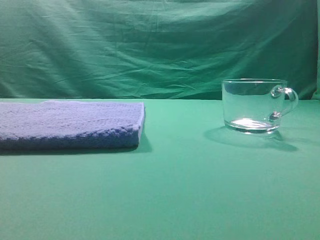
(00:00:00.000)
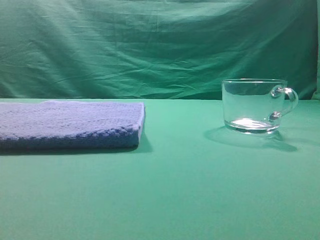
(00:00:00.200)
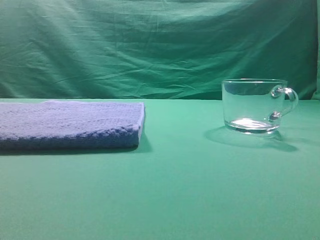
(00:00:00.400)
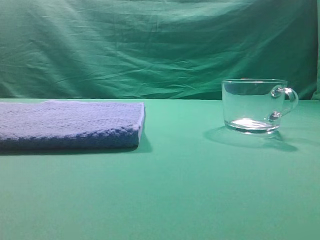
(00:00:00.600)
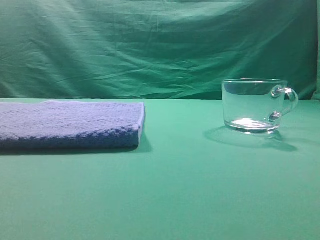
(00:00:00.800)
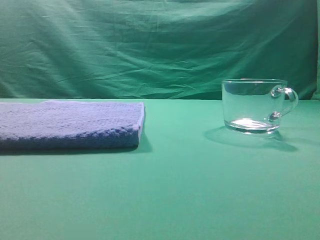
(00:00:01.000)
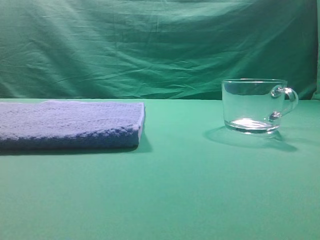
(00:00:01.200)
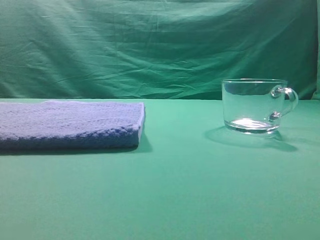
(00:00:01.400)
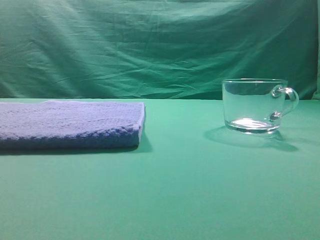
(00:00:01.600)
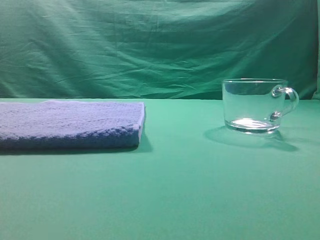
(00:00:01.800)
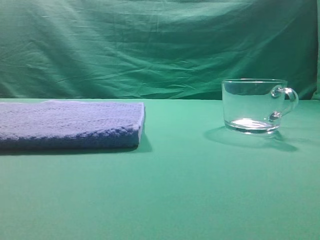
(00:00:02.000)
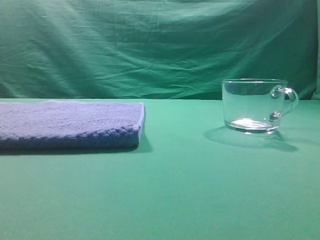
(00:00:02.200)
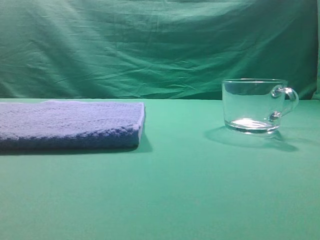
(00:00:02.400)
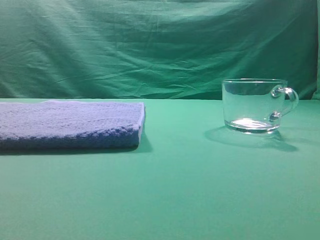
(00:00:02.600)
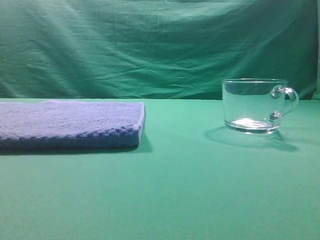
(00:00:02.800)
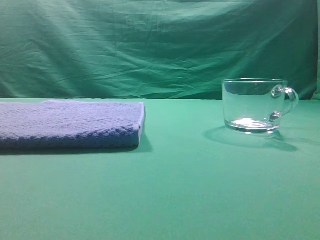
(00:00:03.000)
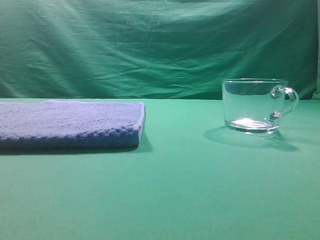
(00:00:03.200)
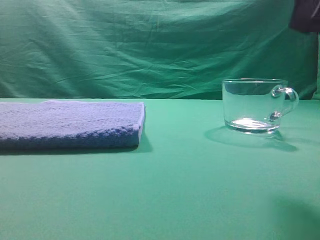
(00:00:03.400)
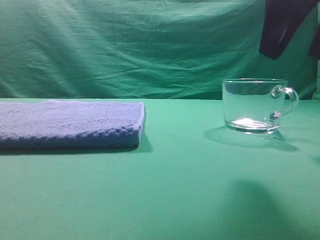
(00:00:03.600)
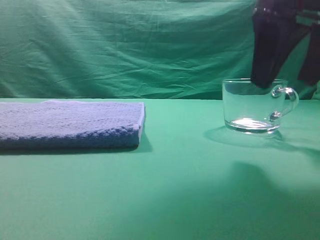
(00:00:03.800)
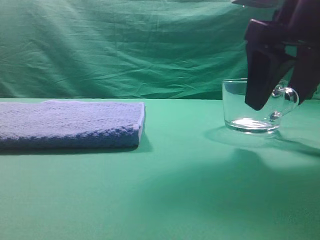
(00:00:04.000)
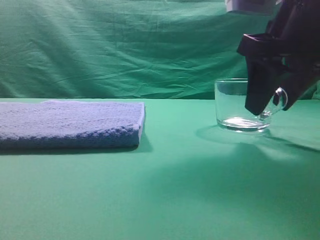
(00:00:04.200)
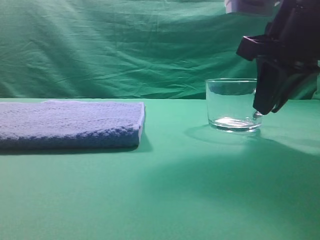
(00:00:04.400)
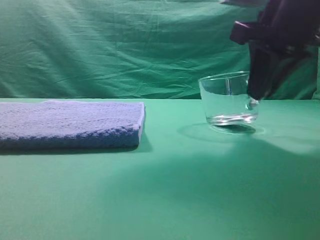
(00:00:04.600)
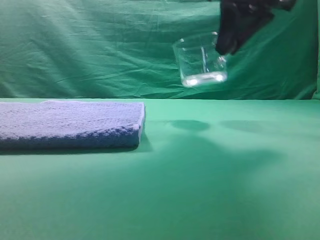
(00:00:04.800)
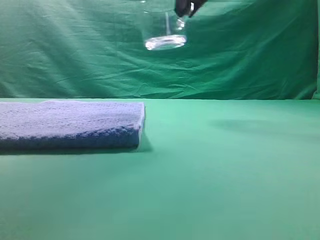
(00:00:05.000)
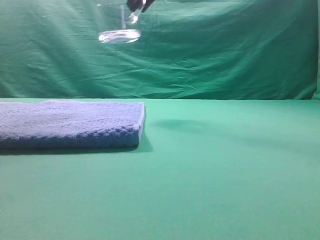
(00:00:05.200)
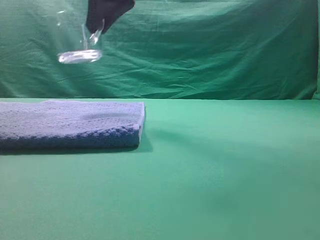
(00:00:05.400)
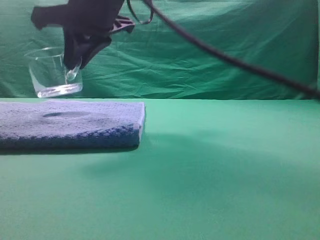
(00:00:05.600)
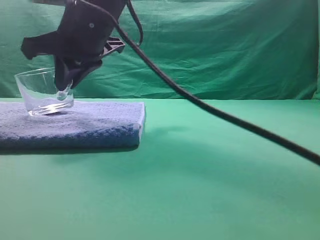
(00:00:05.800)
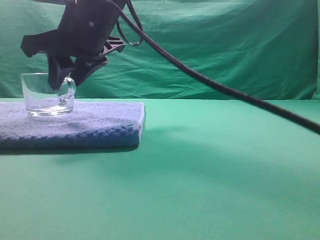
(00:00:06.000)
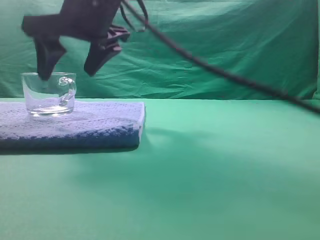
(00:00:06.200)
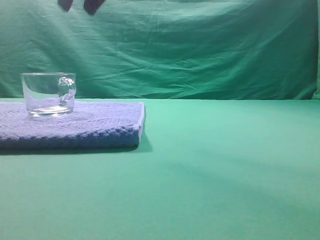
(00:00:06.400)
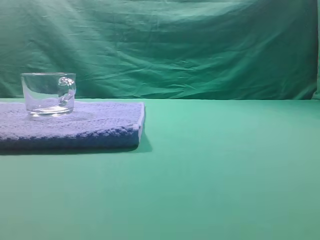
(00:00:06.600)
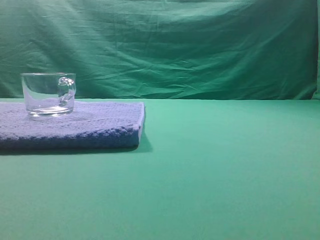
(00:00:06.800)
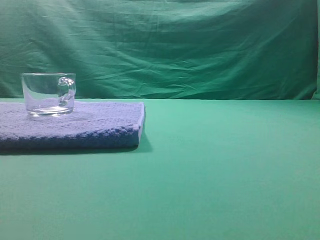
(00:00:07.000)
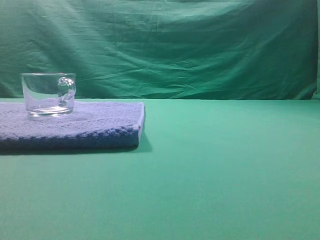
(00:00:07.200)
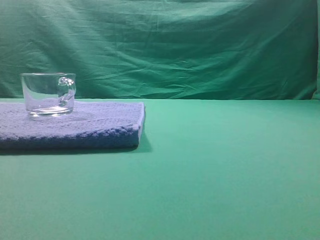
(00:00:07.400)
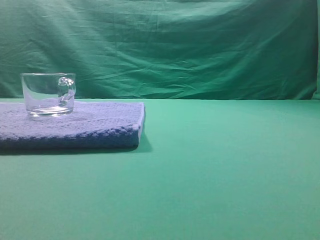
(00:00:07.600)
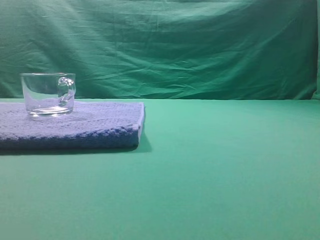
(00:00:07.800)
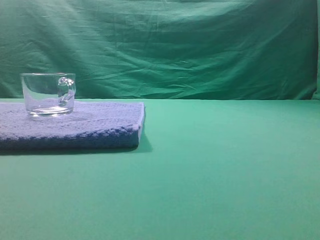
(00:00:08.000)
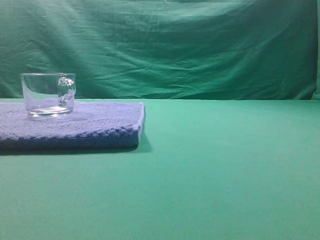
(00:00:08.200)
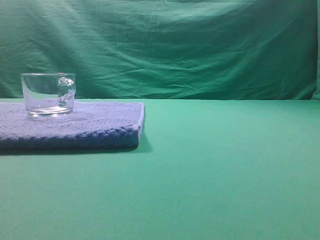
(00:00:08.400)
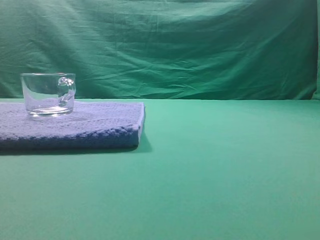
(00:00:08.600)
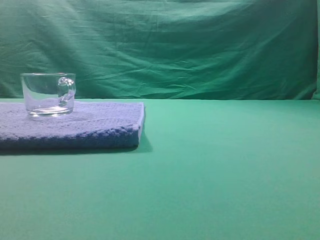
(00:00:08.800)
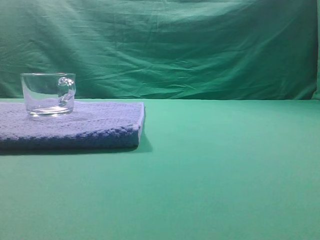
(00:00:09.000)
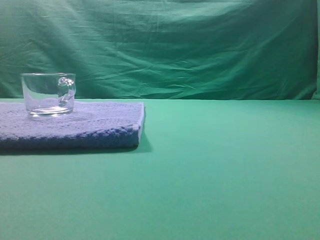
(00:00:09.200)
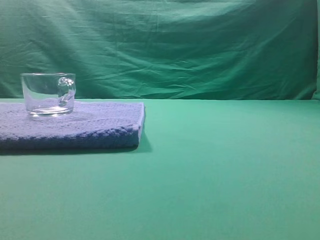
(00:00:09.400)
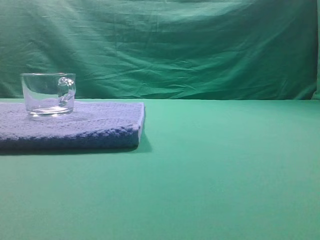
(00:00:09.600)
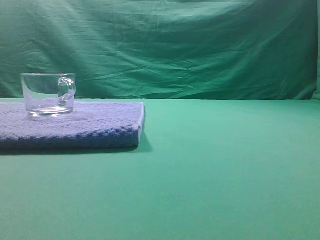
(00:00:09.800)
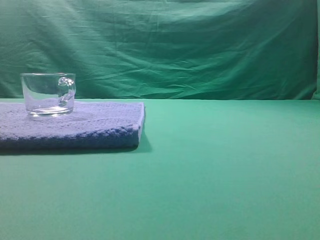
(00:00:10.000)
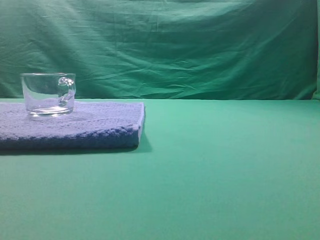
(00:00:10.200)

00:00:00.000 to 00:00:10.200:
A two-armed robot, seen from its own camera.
Task of the whole recording: grasp the transparent glass cup and place it within the blue towel.
Step, 00:00:00.000 to 00:00:04.600: Grasp the transparent glass cup.
Step, 00:00:04.800 to 00:00:06.200: Place the glass cup on the blue zone.

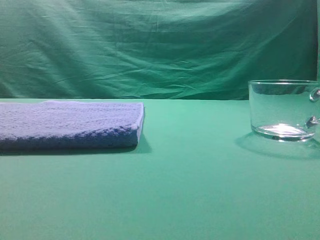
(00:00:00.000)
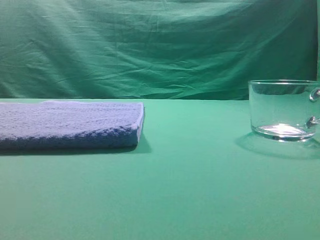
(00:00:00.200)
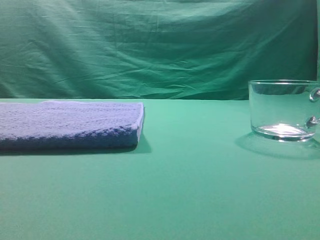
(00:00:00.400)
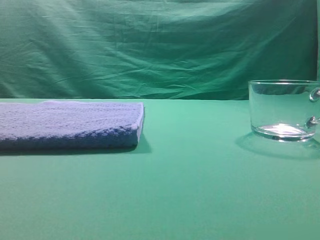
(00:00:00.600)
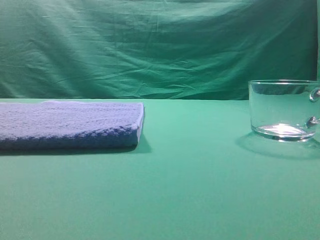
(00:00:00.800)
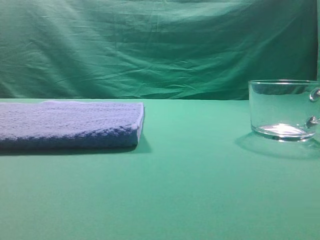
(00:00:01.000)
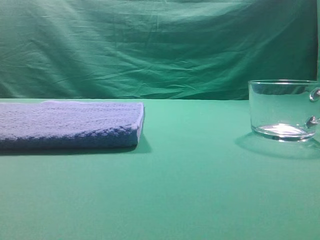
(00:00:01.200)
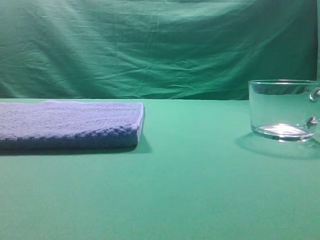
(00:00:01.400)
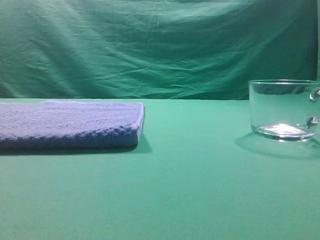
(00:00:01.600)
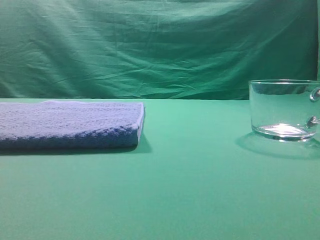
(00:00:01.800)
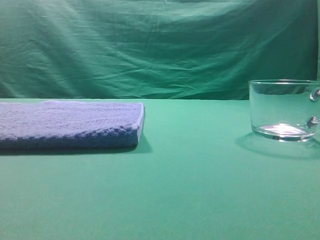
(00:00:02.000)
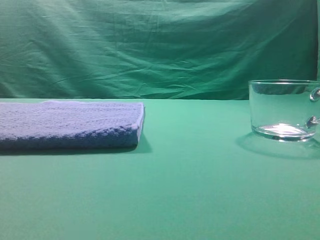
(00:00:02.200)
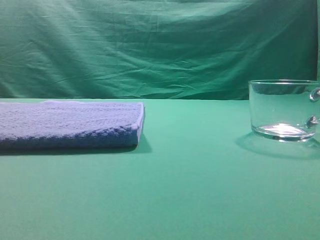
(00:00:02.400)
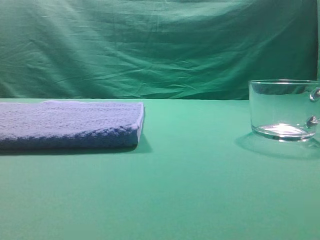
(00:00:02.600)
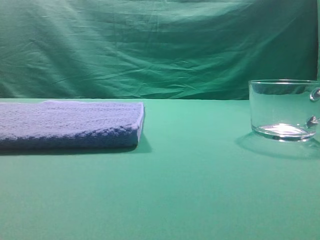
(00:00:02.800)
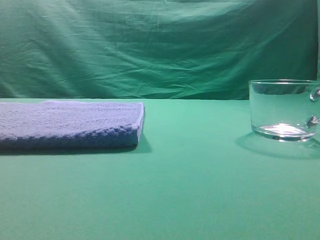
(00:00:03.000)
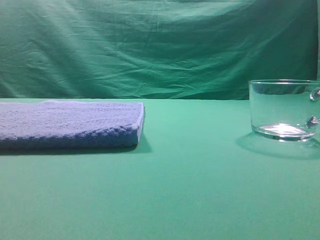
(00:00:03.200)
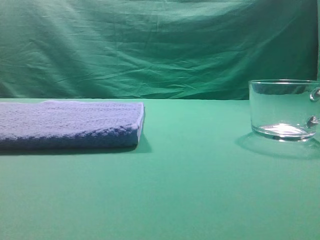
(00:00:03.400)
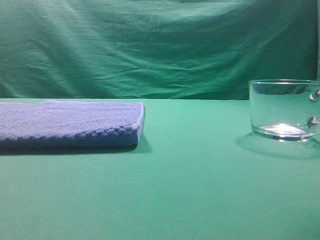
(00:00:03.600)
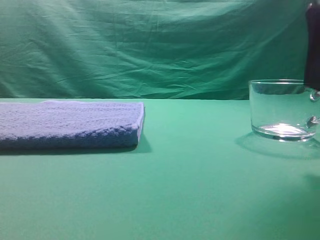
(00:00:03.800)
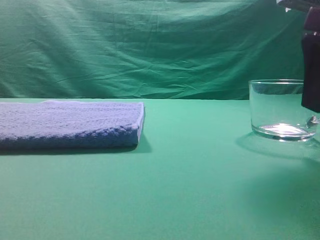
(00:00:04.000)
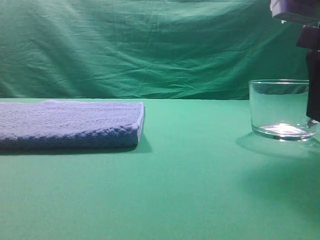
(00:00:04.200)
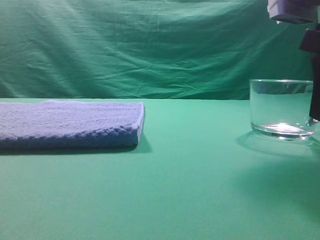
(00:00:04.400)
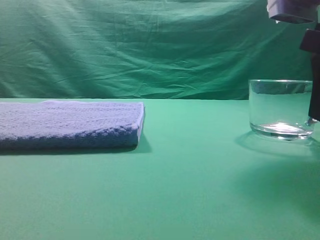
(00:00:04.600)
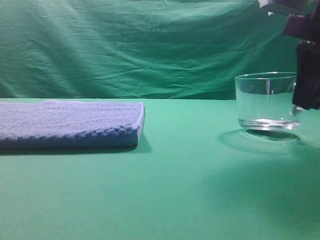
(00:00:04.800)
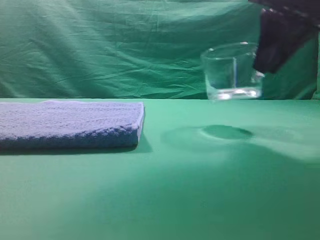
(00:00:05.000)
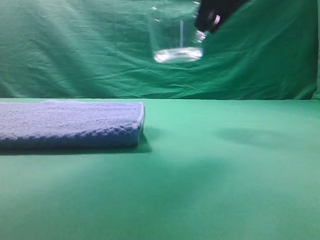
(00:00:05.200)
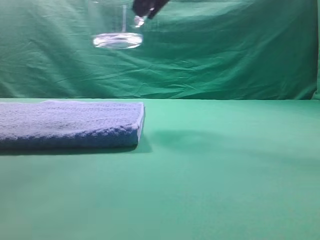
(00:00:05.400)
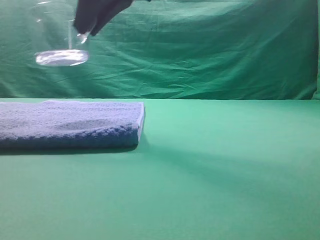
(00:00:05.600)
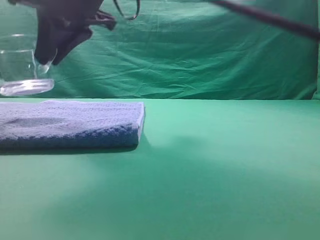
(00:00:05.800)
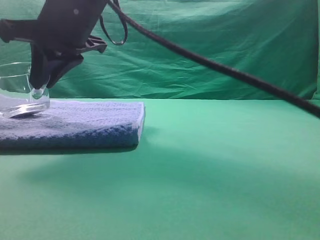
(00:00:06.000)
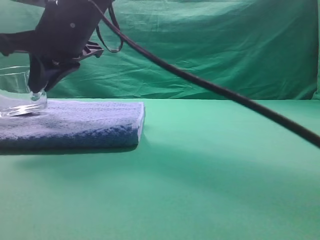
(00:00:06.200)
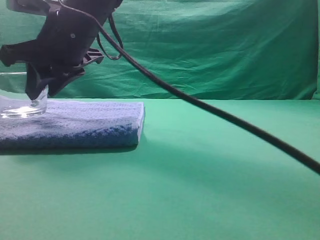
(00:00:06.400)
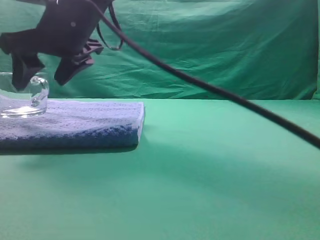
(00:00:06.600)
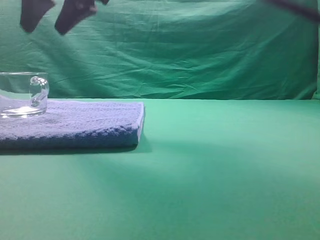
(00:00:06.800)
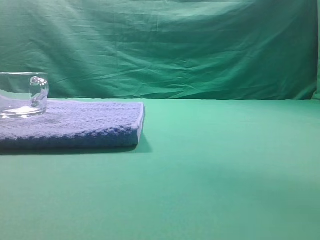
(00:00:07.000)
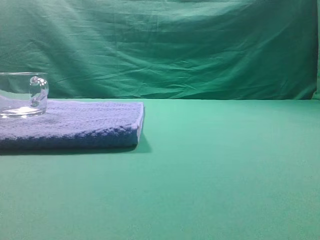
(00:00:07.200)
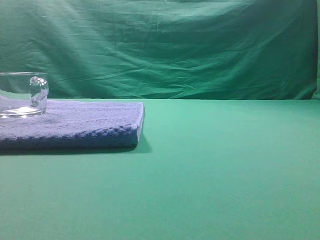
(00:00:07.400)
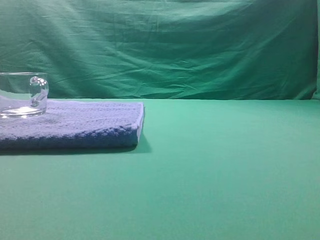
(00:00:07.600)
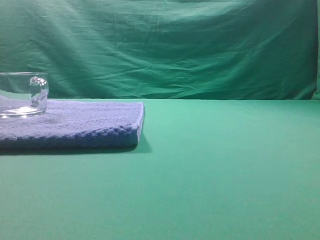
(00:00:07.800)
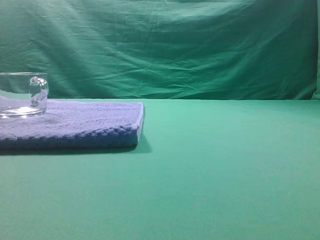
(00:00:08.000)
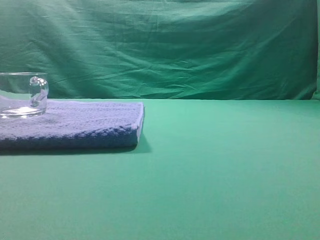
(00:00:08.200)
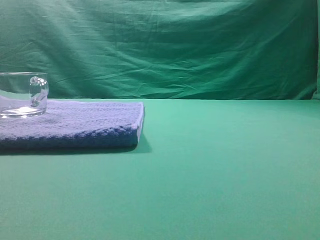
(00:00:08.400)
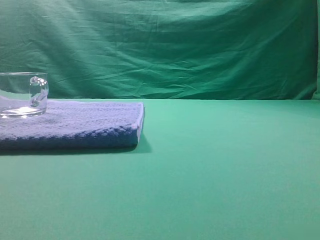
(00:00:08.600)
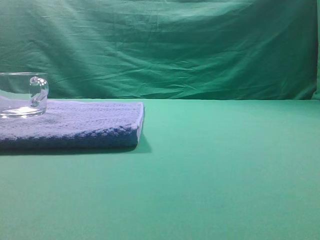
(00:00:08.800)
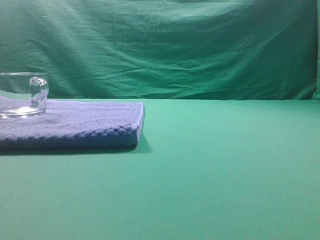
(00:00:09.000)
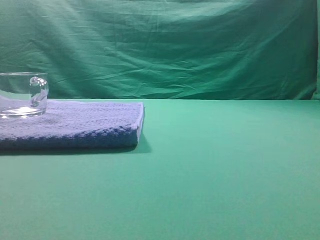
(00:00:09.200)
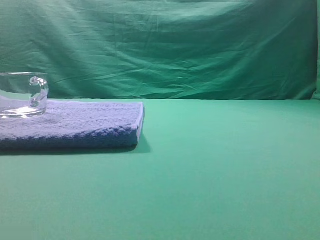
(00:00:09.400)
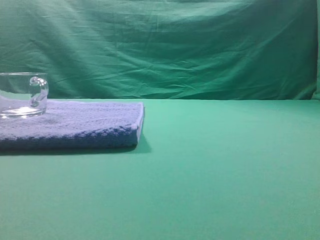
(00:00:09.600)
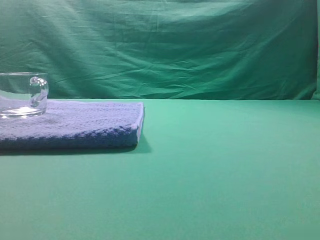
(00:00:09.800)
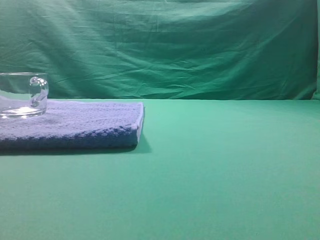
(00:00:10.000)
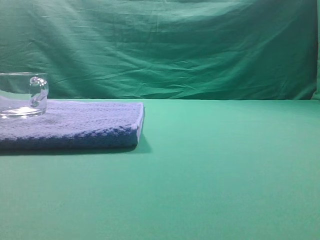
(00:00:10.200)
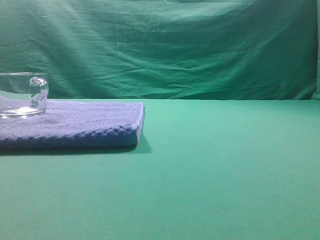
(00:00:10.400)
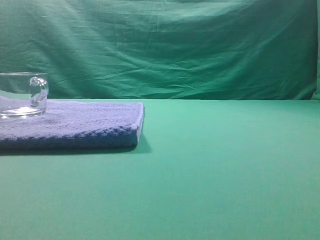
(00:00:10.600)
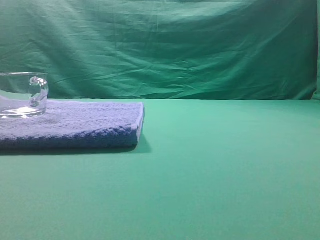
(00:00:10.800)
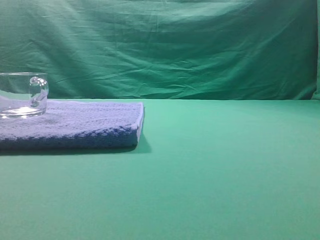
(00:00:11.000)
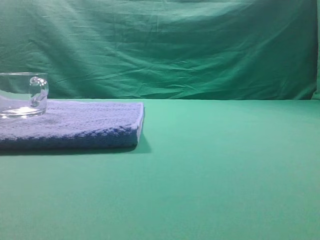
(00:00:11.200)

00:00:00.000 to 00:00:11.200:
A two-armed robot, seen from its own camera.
Task of the whole recording: grasp the transparent glass cup and place it within the blue towel.
Step, 00:00:00.000 to 00:00:04.800: Grasp the transparent glass cup.
Step, 00:00:05.000 to 00:00:06.600: Place the glass cup on the blue zone.
